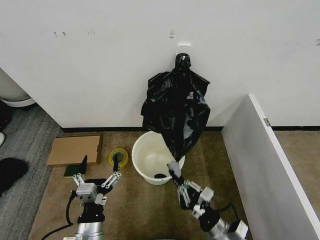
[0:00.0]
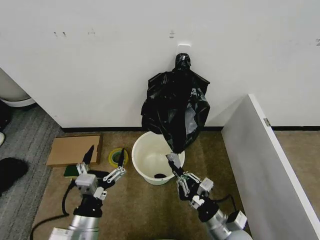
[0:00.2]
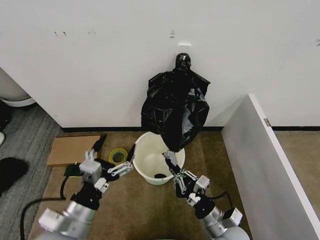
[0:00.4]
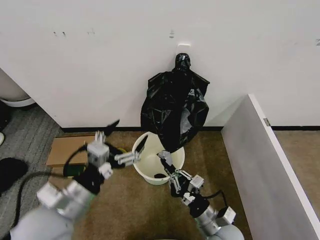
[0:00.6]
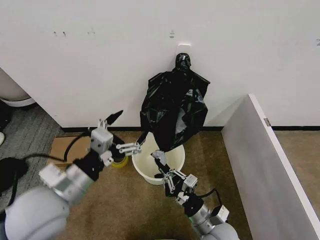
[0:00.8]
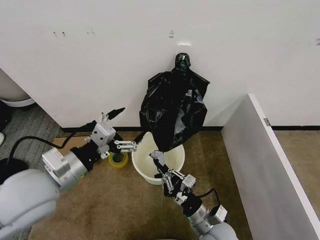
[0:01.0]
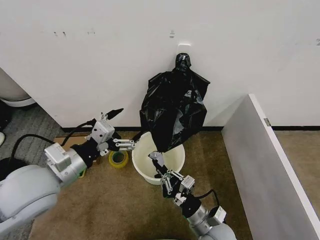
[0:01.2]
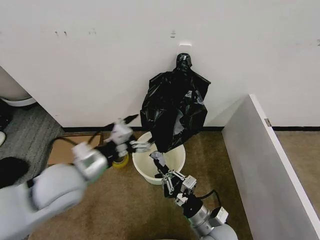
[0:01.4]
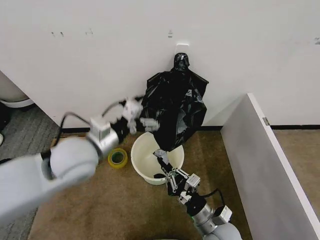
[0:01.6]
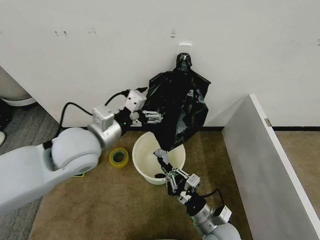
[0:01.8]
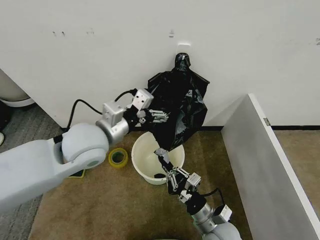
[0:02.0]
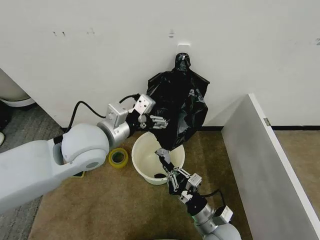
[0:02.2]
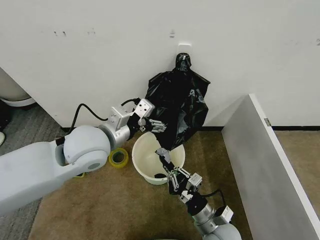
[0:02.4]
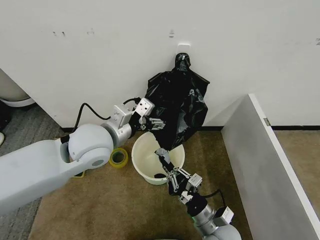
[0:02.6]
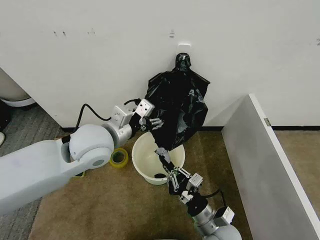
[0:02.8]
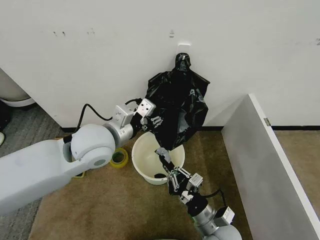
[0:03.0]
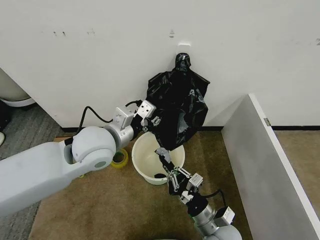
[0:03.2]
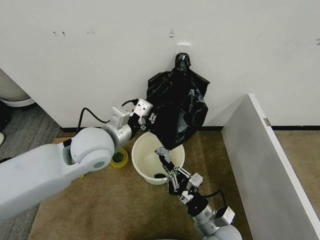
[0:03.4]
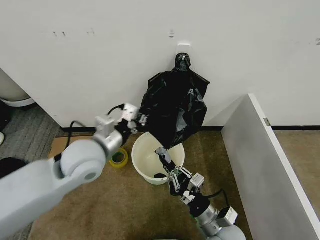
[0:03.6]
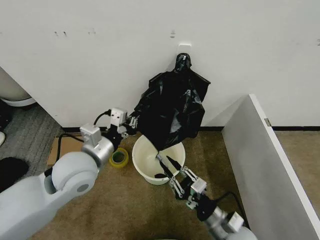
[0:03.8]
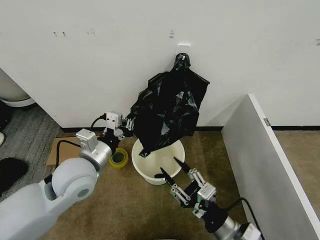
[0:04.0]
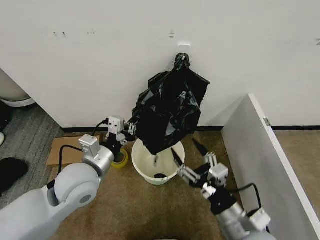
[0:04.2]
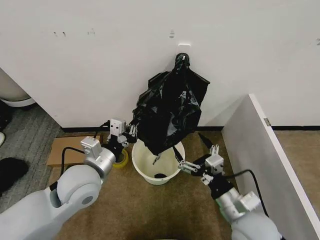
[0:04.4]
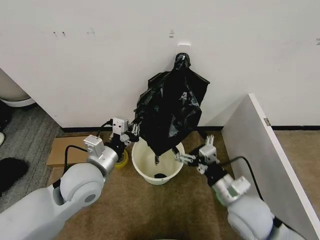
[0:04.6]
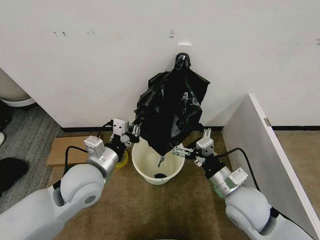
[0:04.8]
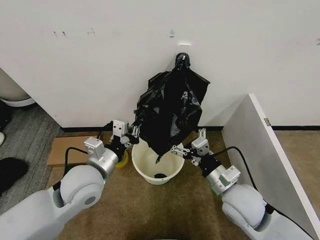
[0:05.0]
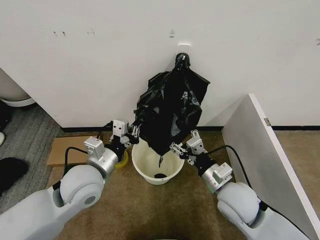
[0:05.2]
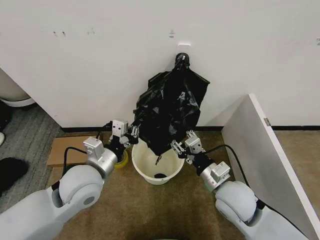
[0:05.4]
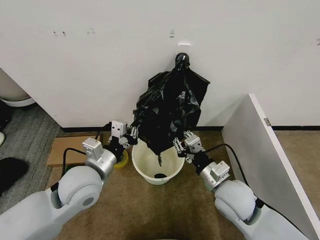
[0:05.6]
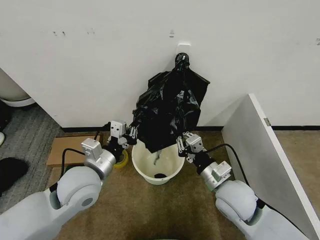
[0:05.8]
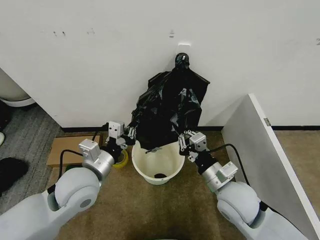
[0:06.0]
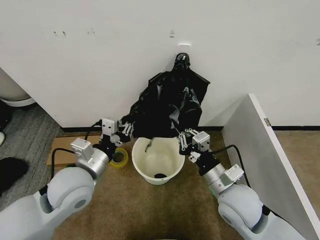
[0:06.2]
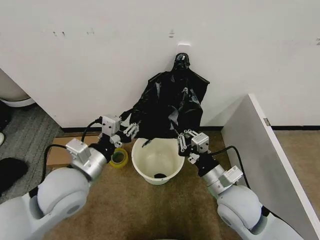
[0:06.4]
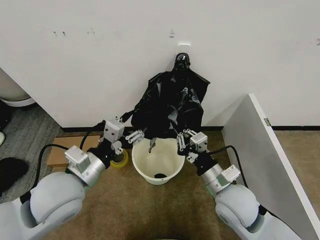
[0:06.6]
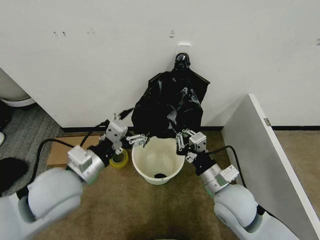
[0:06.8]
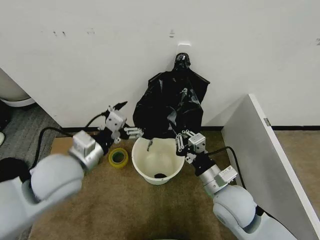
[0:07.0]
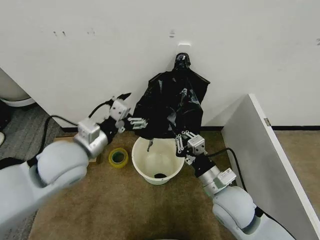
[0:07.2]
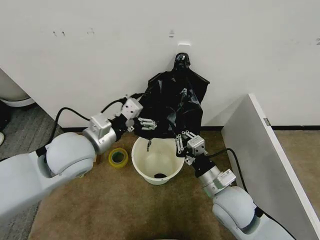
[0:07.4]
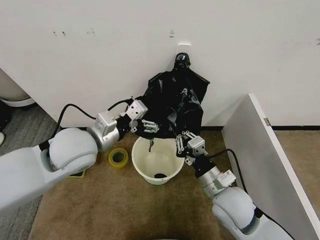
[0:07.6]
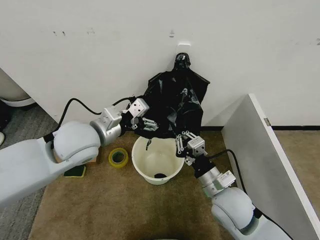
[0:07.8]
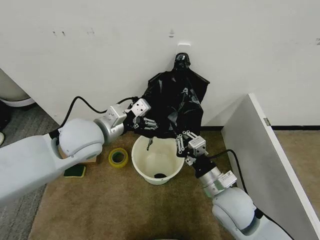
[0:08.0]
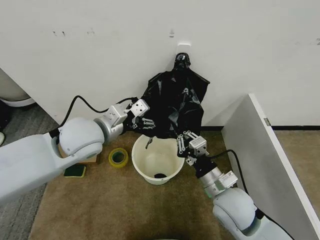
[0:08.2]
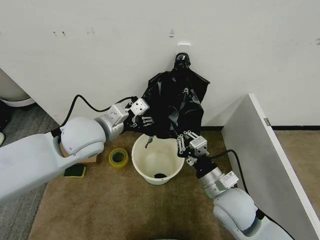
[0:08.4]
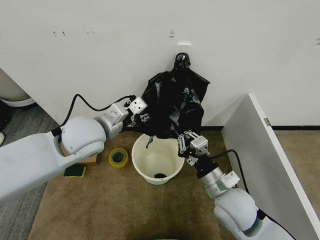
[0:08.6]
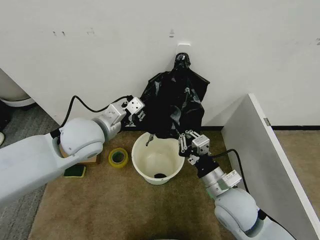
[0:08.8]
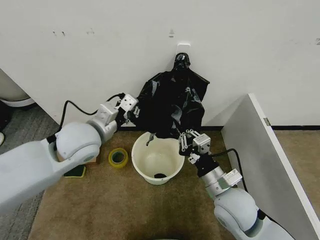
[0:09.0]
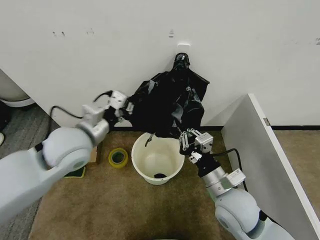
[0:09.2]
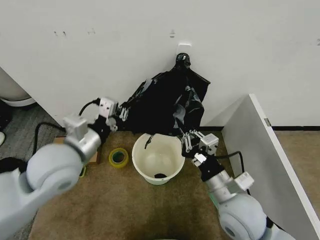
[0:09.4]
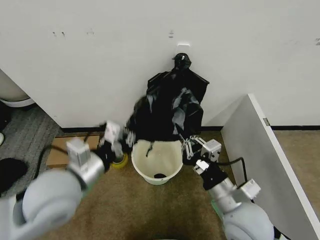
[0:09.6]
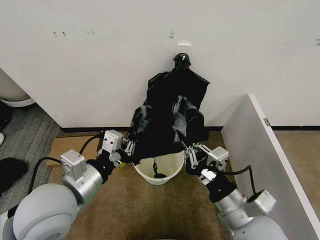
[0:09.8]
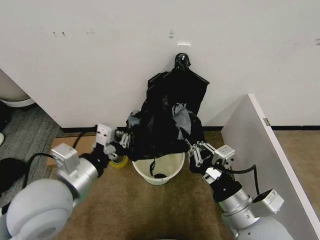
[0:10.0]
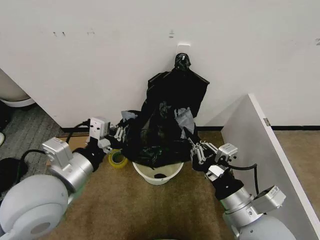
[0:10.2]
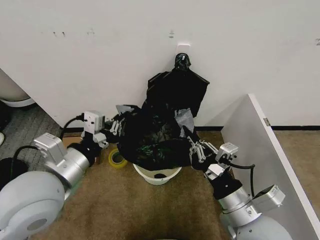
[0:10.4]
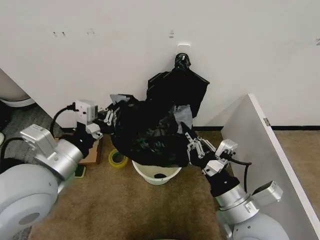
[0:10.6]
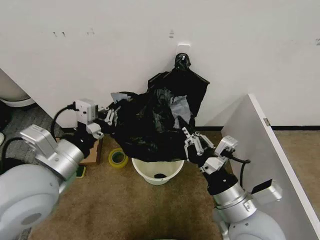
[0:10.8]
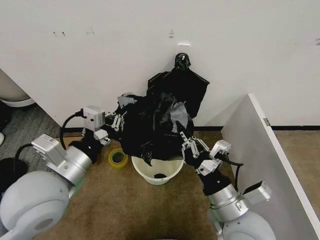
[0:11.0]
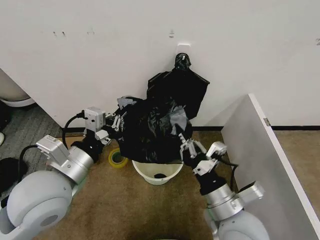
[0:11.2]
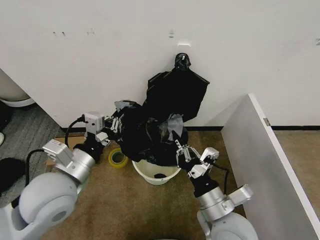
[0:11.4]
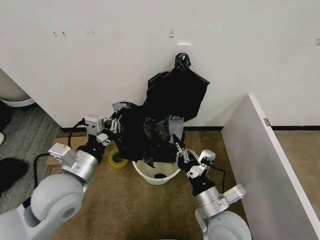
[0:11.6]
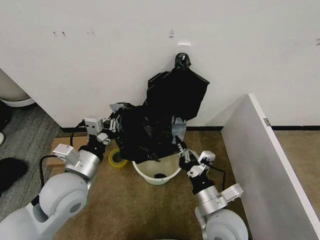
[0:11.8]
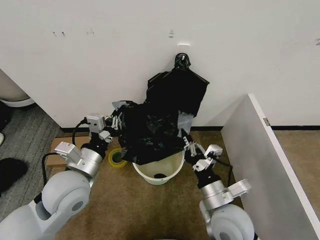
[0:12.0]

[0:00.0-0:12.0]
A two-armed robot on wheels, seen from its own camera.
Task of the whole recording: Place the garbage bag over the trash bin.
0:00.0 to 0:01.6: The right gripper moves about 5 cm. Meanwhile the left gripper shifts about 25 cm upward and forward.
0:01.6 to 0:03.0: The left gripper moves roughly 5 cm, and closes.
0:03.0 to 0:04.4: The right gripper travels upward by about 10 cm, and opens; the left gripper shifts roughly 10 cm downward and backward, and closes its fingers.
0:04.4 to 0:06.0: The right gripper is displaced forward by roughly 5 cm, and closes its fingers.
0:06.0 to 0:07.6: The left gripper travels upward and forward by roughly 10 cm, and opens its fingers.
0:07.6 to 0:09.0: The left gripper closes up.
0:09.0 to 0:10.4: The left gripper is displaced backward by approximately 15 cm, while the right gripper goes about 10 cm backward.
0:10.4 to 0:12.0: The grippers both shift downward by approximately 5 cm.

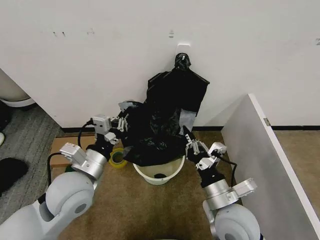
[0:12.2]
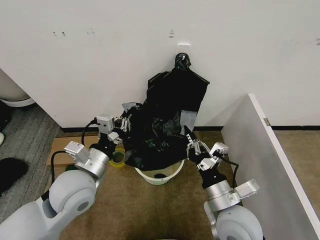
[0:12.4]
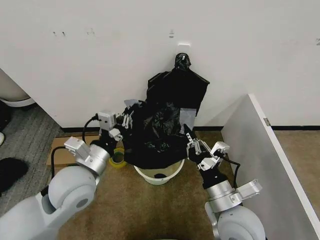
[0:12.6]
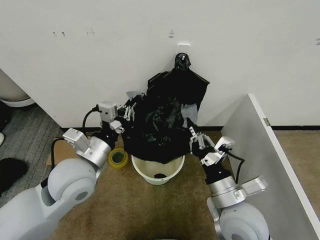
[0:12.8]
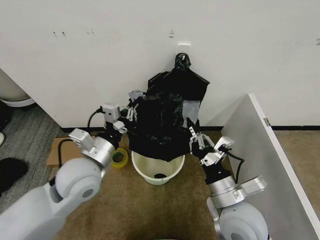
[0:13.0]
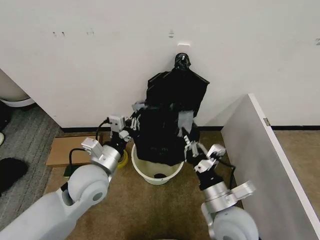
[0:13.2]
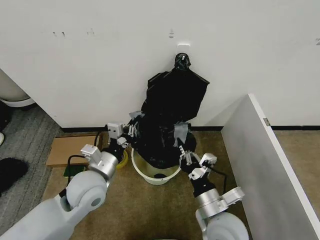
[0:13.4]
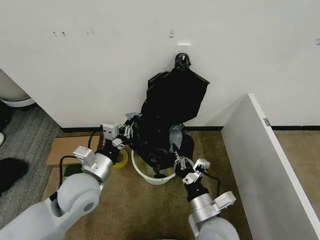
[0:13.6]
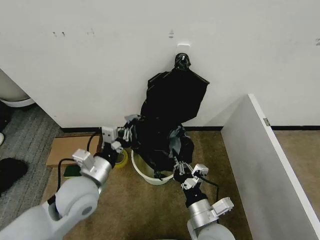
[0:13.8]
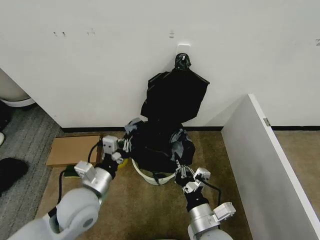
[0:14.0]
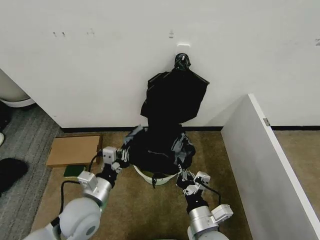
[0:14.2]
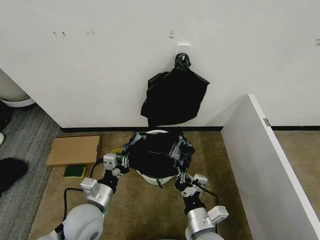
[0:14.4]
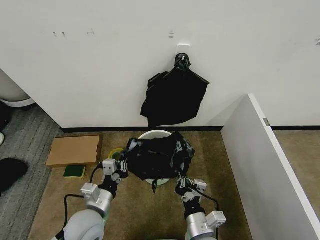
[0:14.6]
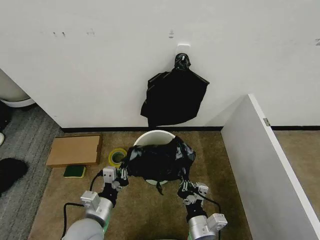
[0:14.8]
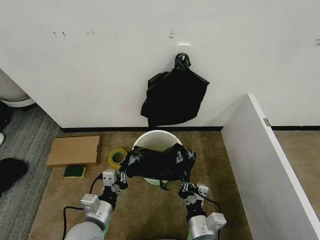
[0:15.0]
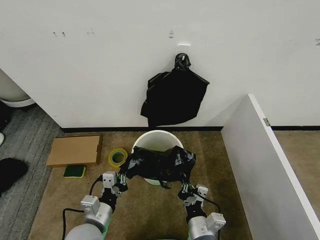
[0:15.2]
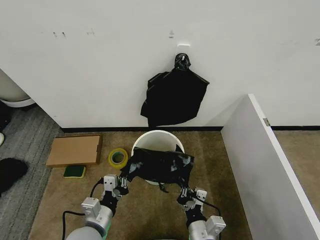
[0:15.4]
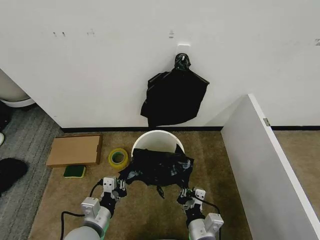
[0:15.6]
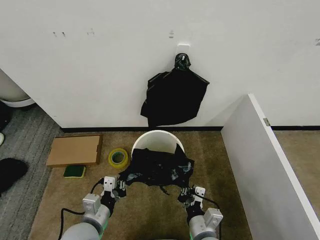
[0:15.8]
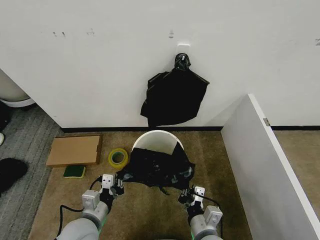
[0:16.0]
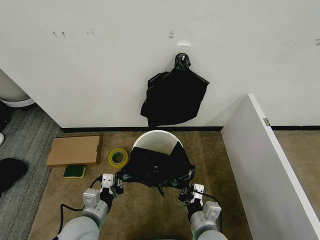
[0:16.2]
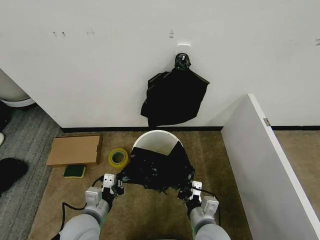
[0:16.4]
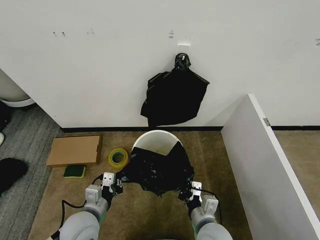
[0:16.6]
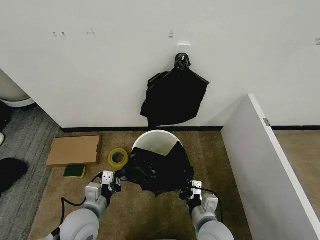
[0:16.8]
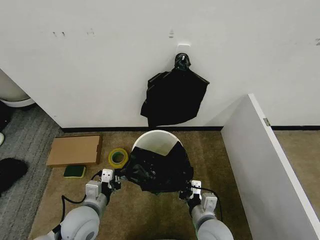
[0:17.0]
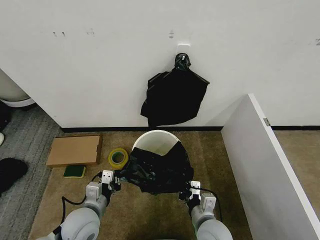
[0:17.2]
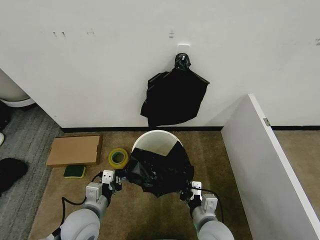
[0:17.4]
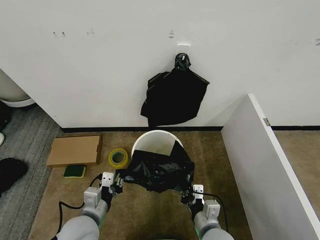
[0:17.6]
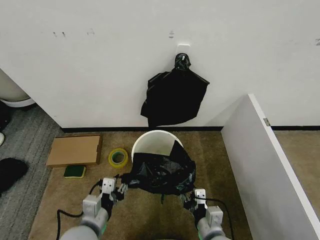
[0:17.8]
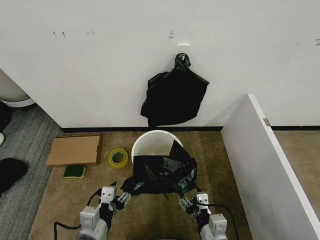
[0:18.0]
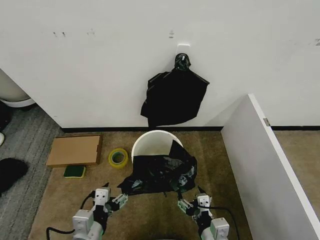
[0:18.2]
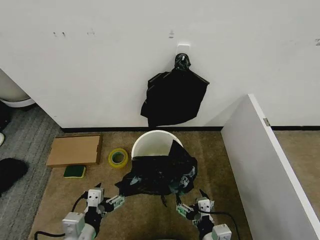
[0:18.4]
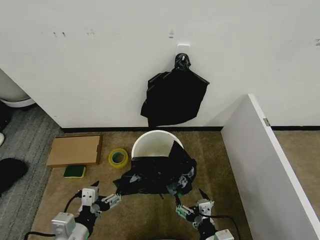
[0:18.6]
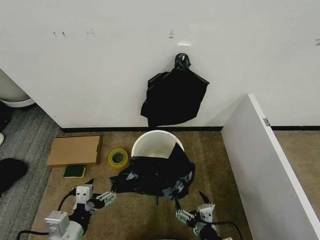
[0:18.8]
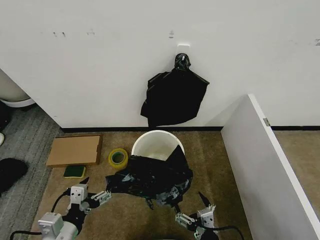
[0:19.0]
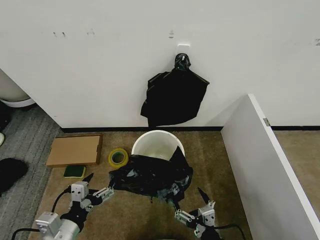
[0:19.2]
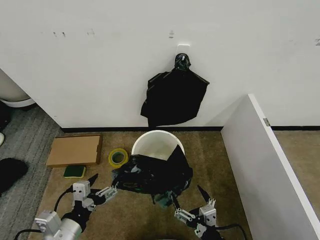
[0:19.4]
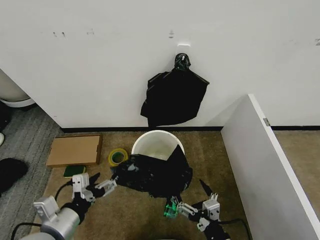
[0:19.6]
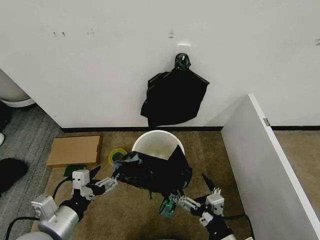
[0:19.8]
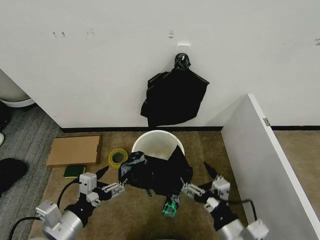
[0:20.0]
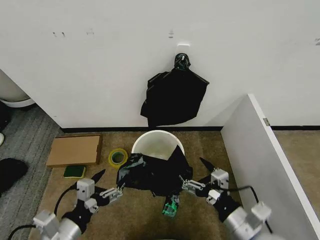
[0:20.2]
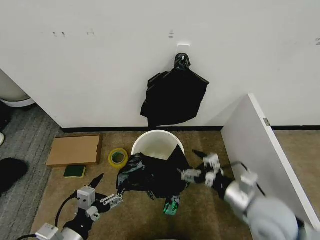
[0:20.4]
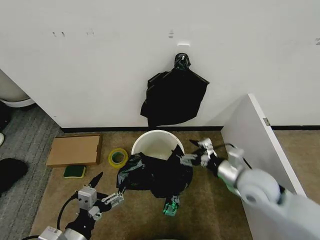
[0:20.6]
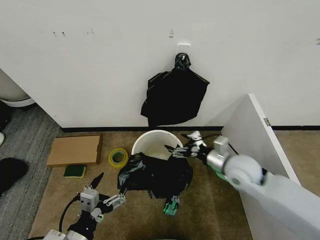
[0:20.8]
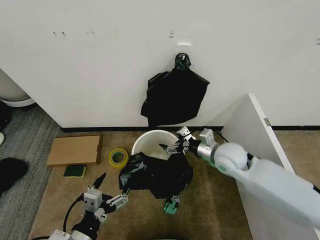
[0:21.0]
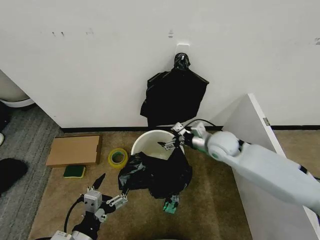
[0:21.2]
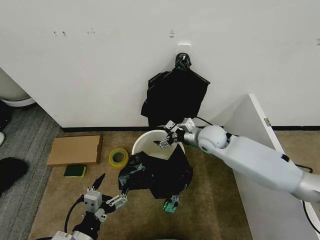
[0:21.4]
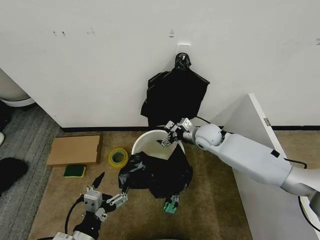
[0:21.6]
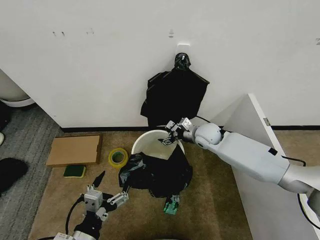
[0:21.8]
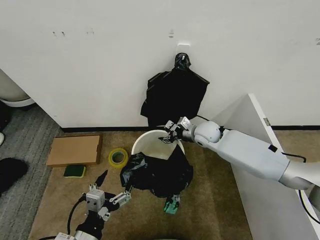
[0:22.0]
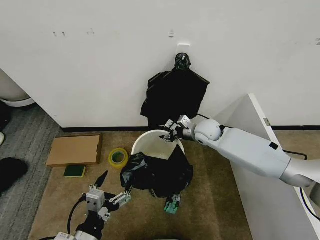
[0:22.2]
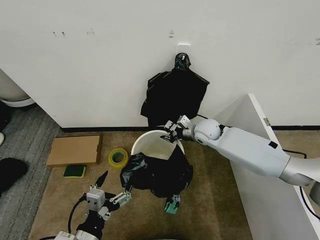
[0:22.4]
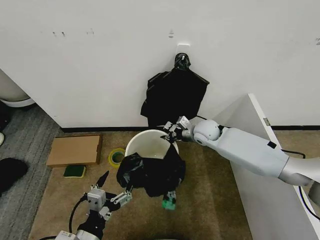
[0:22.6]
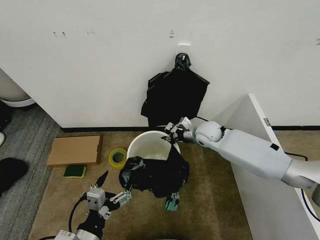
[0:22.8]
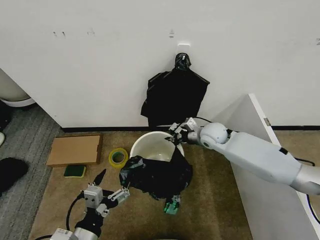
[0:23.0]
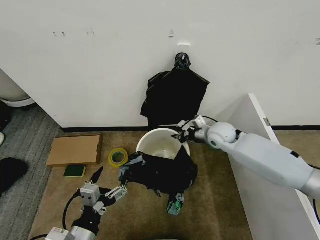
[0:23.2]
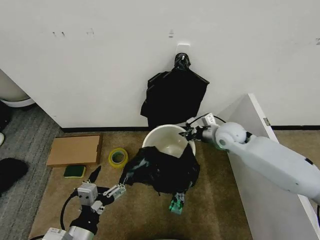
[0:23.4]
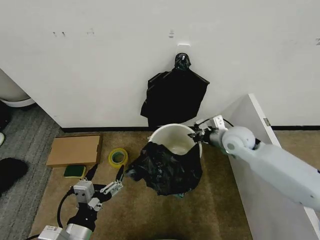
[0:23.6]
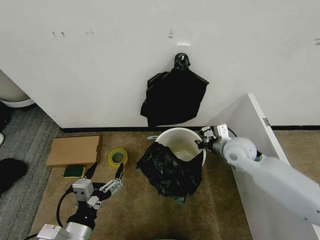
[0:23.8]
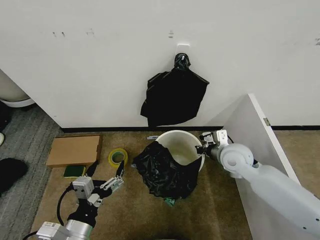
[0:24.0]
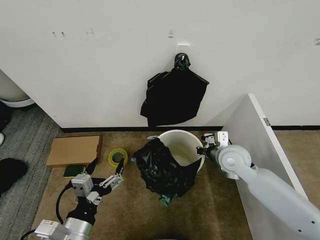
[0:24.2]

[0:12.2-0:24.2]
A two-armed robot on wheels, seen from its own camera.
Task of the whole recording: Place the garbage bag over the trash bin.
0:12.2 to 0:13.8: The right gripper heads downward, covering some 5 cm.
0:13.8 to 0:15.2: The right gripper is displaced downward by some 5 cm; the left gripper shifts about 15 cm downward and backward.
0:16.6 to 0:18.2: The two grippers go about 5 cm backward. The left gripper opens its fingers; the right gripper opens its fingers.
0:18.2 to 0:19.8: The right gripper changes place by about 5 cm, while the left gripper goes roughly 10 cm to the left and upward.
0:19.8 to 0:21.2: The left gripper goes some 5 cm downward. Meanwhile the right gripper is displaced forward by about 35 cm.
0:21.2 to 0:22.6: The right gripper moves forward, approximately 10 cm, and closes.
0:22.6 to 0:24.2: The right gripper heads backward and to the right, covering roughly 15 cm.
